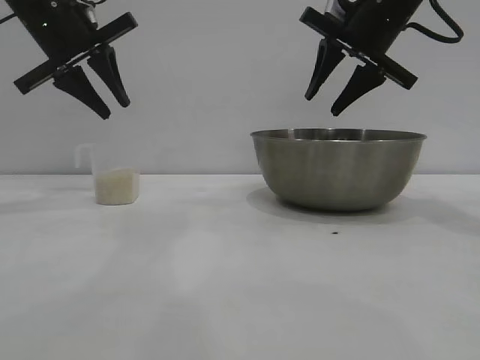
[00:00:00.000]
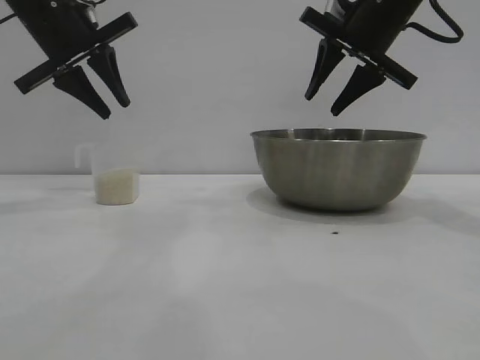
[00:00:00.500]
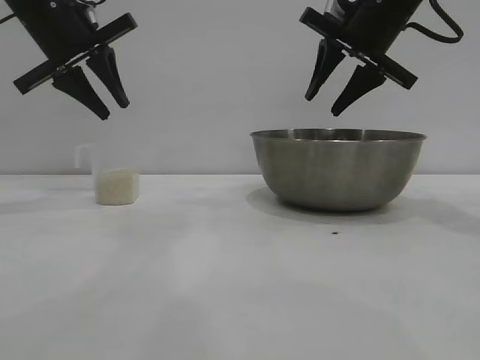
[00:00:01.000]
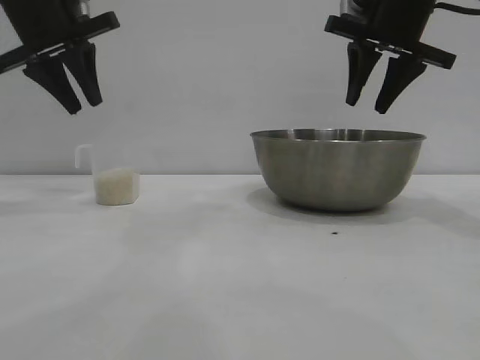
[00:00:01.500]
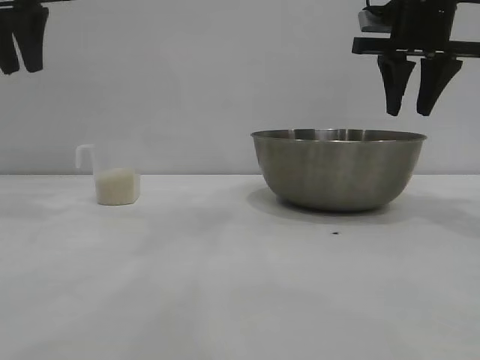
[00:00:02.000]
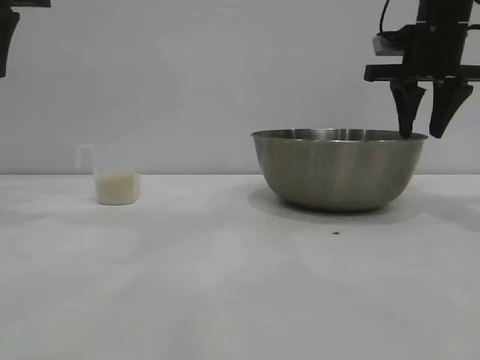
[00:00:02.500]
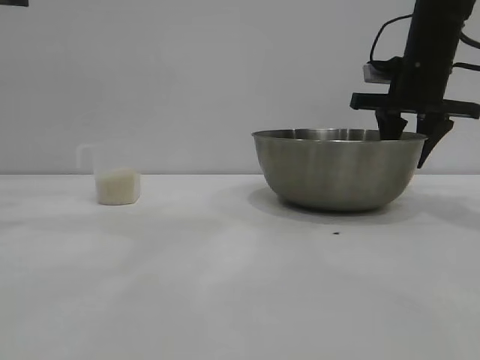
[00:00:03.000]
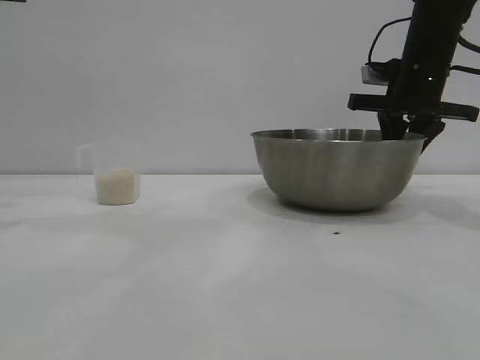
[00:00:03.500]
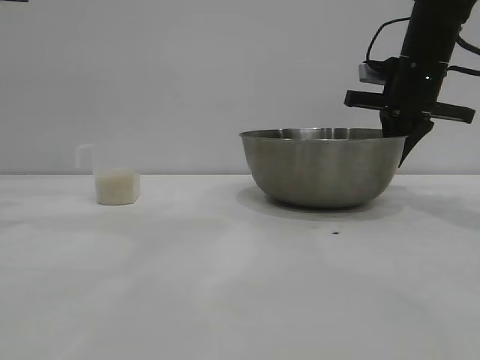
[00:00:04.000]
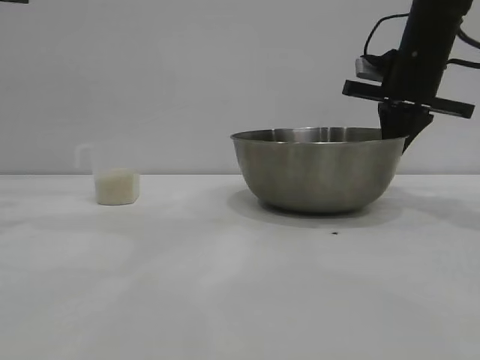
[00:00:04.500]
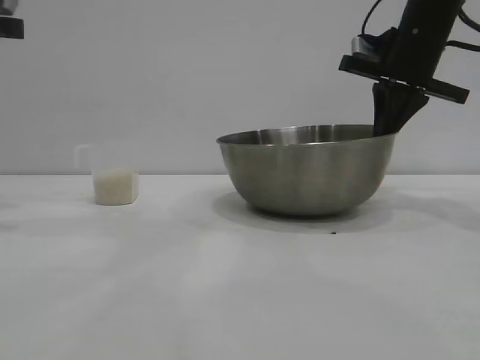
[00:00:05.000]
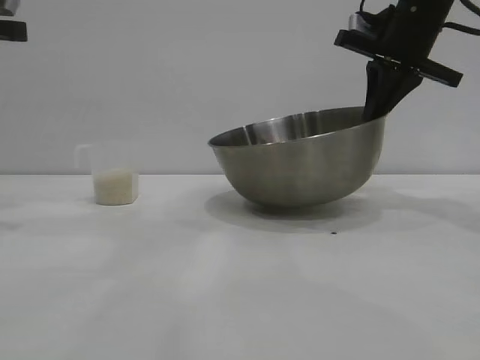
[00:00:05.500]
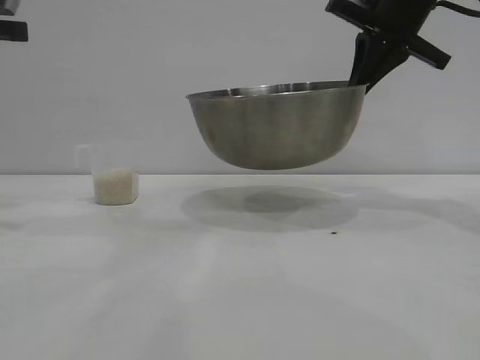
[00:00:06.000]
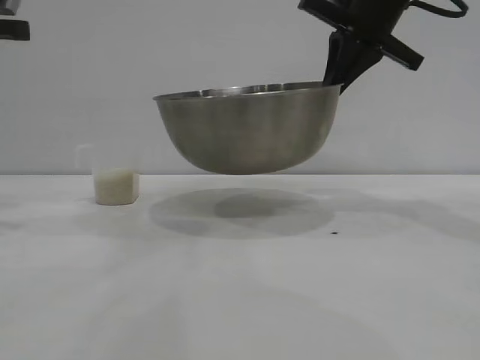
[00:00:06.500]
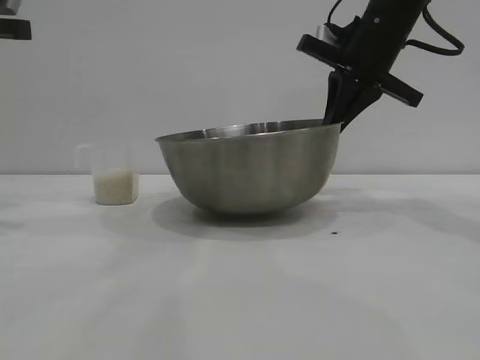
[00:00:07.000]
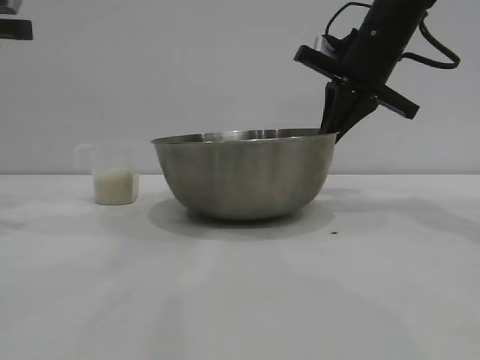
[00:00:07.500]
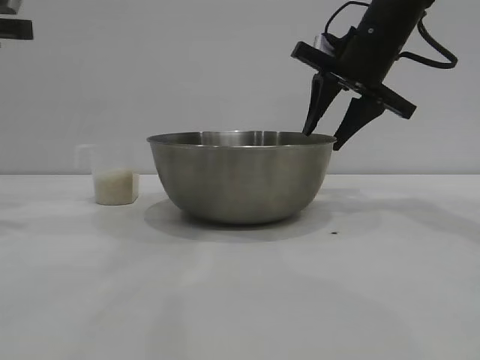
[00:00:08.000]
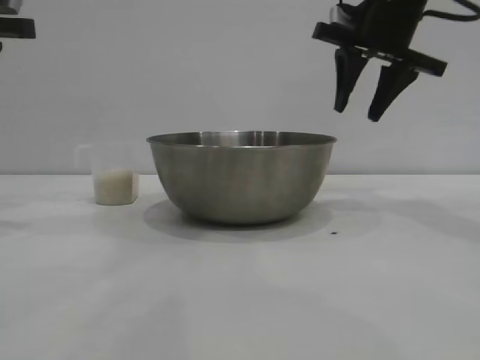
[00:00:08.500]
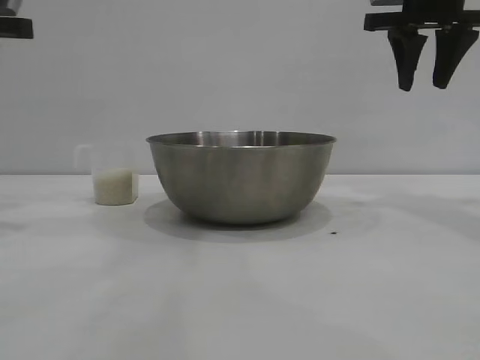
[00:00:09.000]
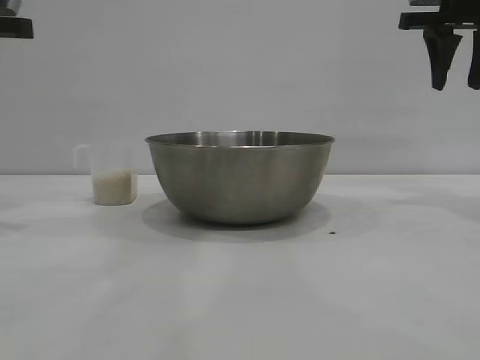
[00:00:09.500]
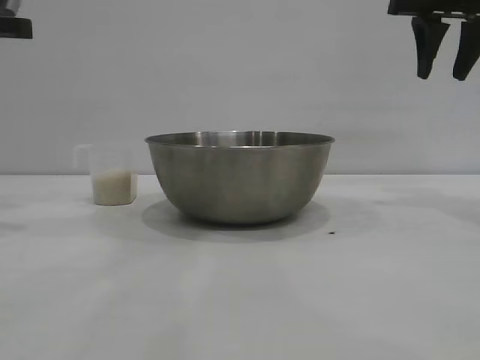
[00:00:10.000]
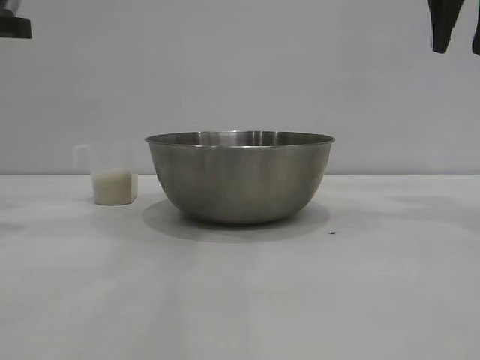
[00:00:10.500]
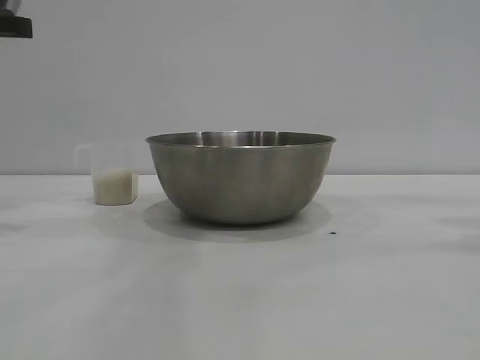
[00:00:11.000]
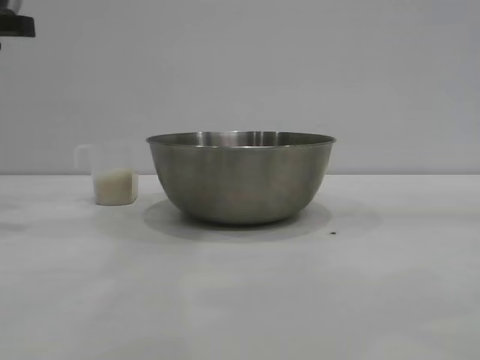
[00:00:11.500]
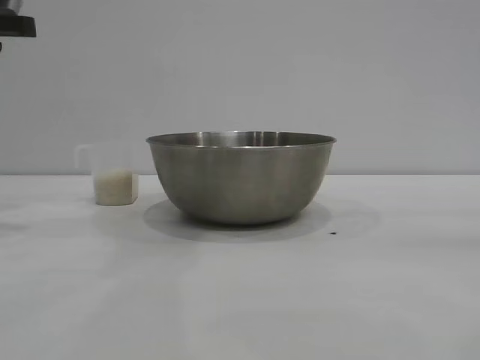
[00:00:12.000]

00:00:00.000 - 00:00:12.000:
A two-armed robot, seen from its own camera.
Task of the whole recording: the right gripper grasp the rice container and place it in the center of the table, the left gripper grasp the rice scoop and pour the rice into the rice container.
Step, 00:00:00.000 - 00:00:05.500: Pick up the bowl with the right gripper.
Step, 00:00:06.000 - 00:00:08.500: Place the bowl in the center of view with the right gripper.

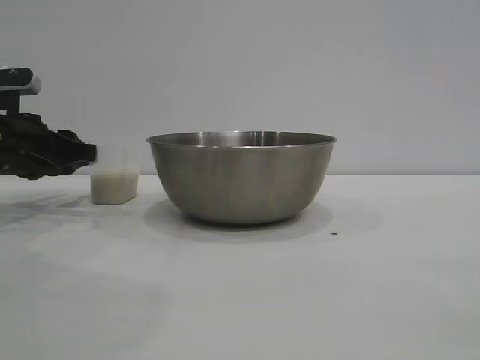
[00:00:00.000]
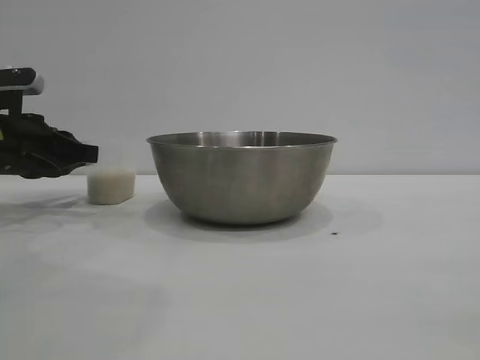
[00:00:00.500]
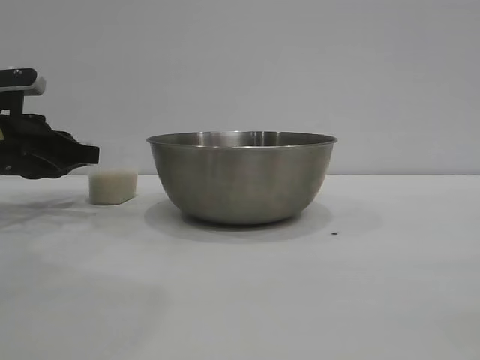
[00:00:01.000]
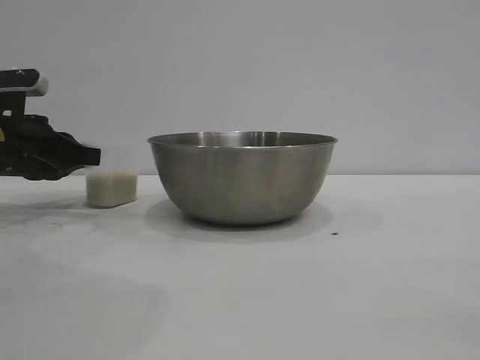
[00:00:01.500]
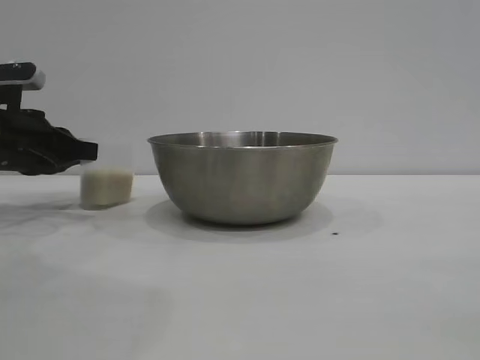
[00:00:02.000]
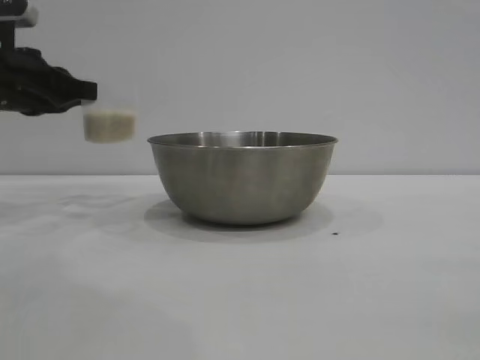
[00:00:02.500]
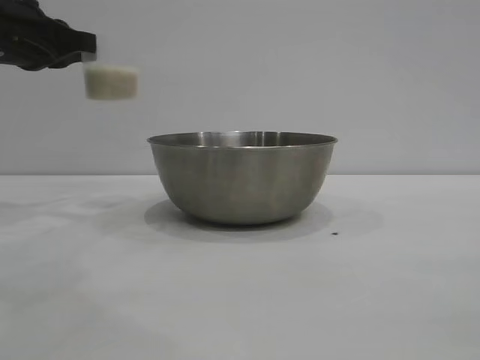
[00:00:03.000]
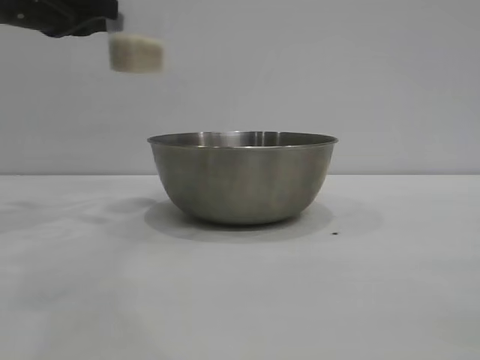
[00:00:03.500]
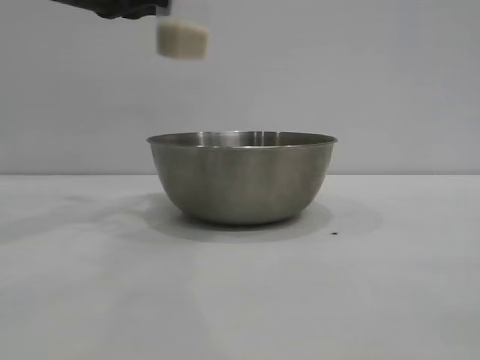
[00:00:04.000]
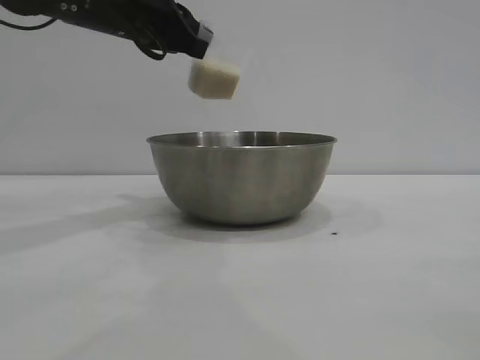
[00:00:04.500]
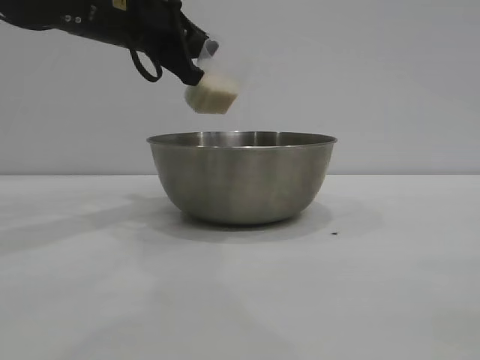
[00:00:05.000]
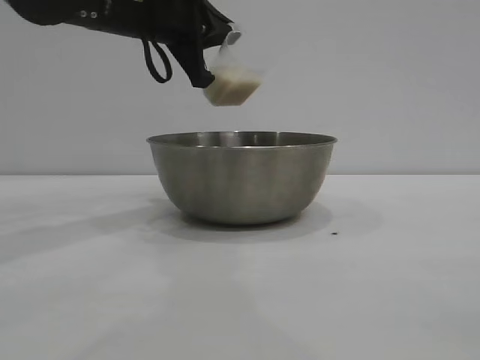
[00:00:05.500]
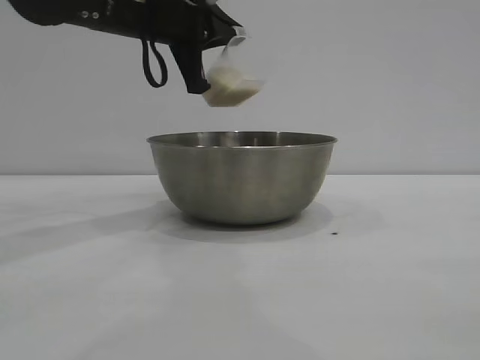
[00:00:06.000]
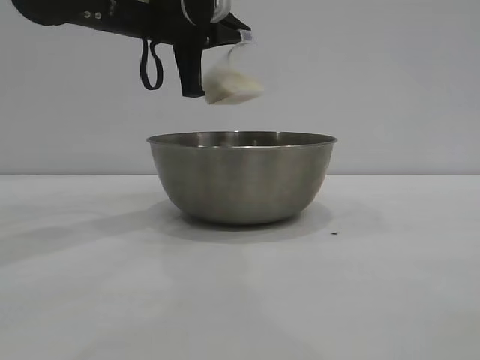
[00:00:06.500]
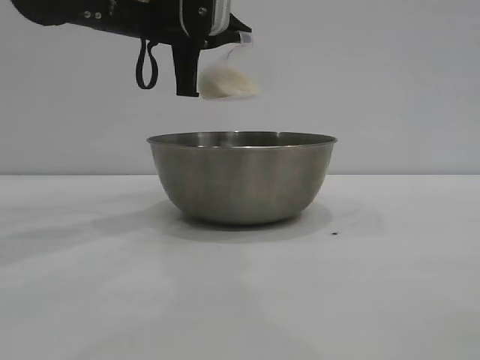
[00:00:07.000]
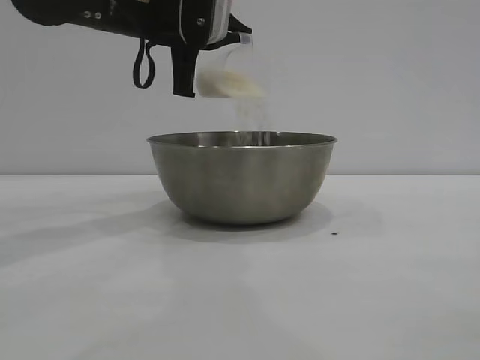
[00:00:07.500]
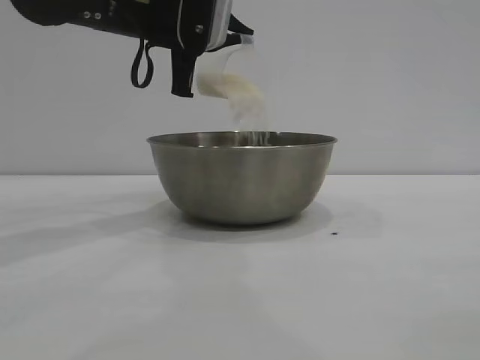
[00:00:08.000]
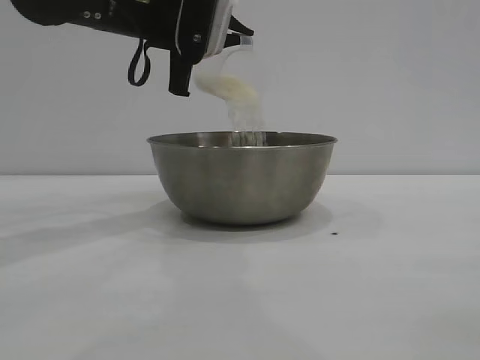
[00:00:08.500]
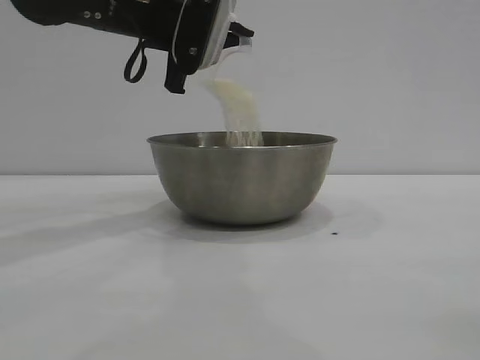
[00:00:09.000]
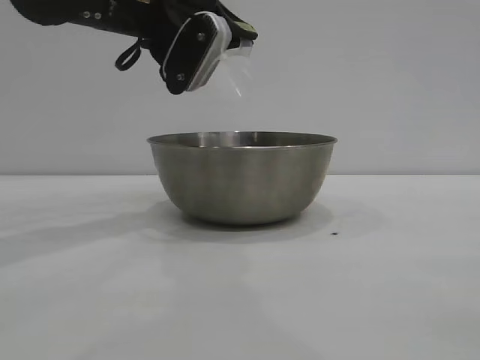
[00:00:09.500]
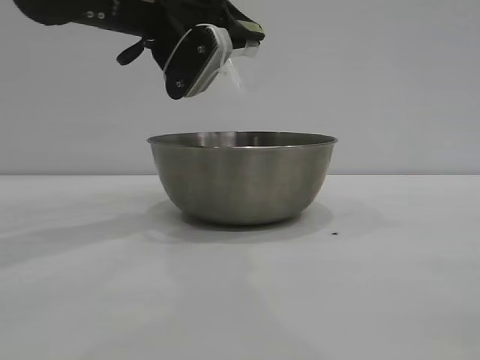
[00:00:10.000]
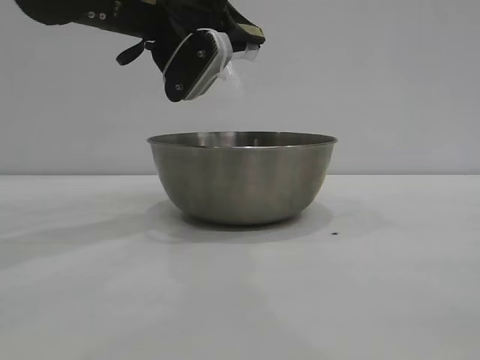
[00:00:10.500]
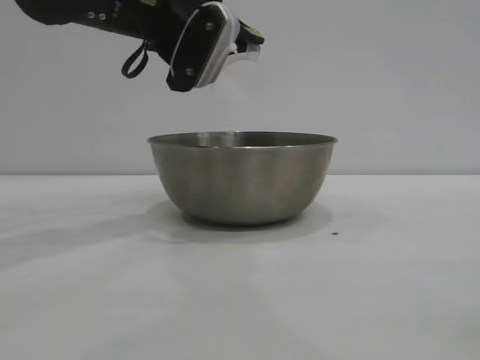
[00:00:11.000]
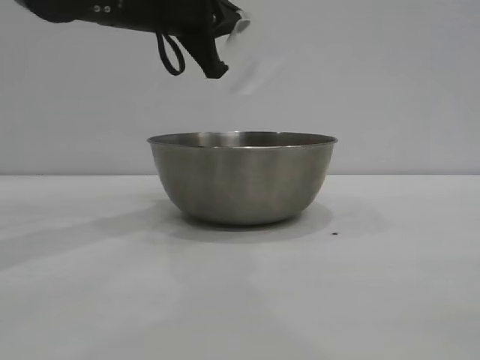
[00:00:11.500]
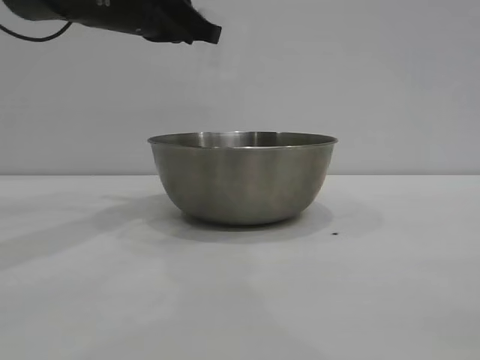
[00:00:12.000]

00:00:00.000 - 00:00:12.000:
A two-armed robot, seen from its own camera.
Task of the whole recording: the right gripper grasp the rice container and place it in the center of the table, the left gripper grasp the rice scoop and pour the rice into the rice container.
Step, 00:00:00.000 - 00:00:02.500: Pick up the cup with rice in it with the left gripper.
Step, 00:00:03.000 - 00:00:11.500: Pour the rice from the cup into the bowl with the left gripper.

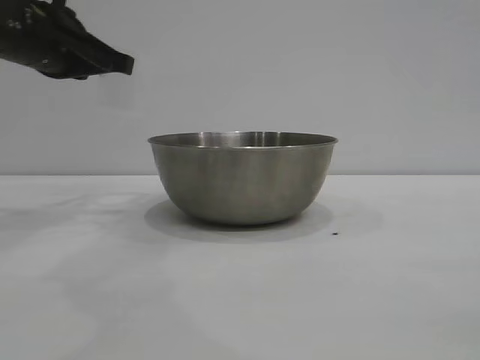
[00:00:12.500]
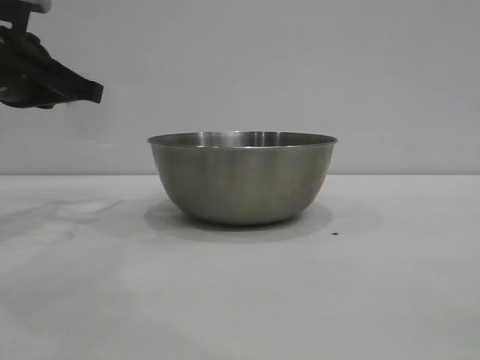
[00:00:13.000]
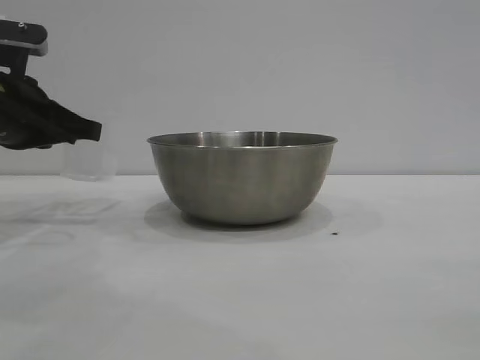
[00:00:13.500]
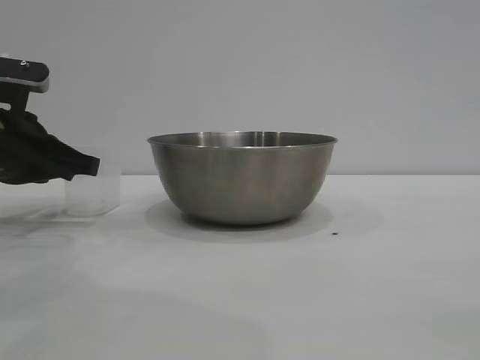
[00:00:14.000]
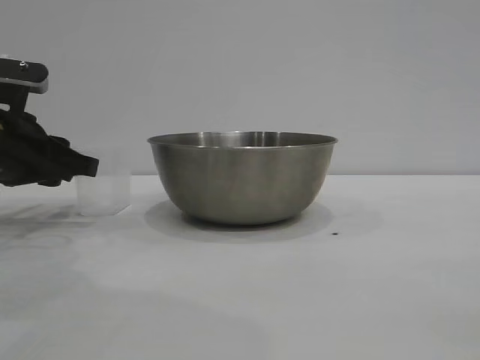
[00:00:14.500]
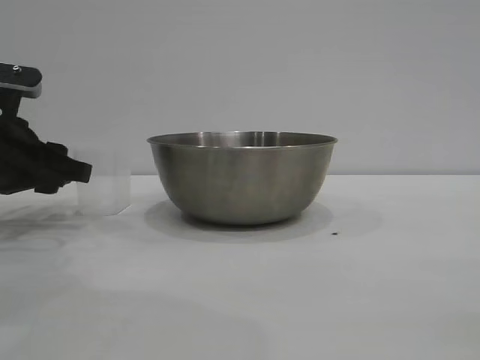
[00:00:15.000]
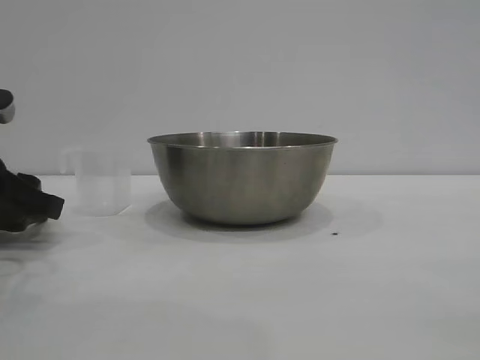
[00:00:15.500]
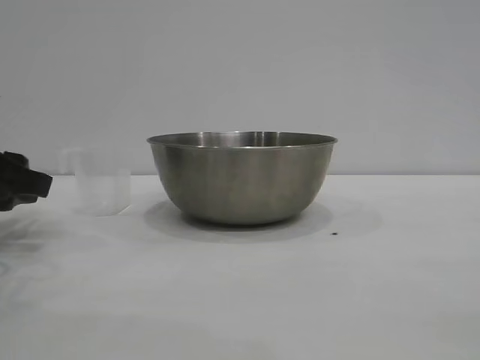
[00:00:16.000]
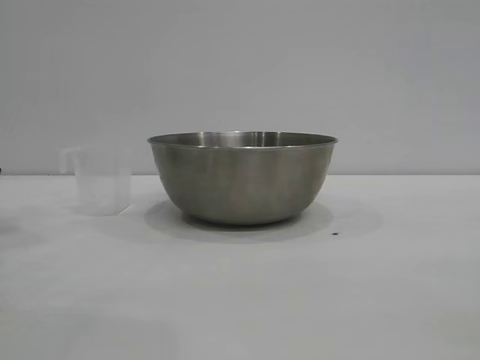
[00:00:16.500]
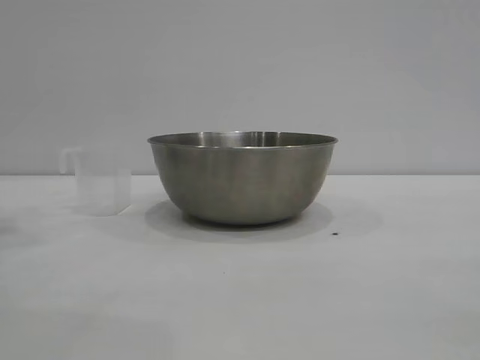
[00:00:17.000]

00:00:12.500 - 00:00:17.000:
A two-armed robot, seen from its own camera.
Task of the whole recording: the right gripper grasp the rice container and place it in the center of the table, the left gripper grasp the rice scoop and pour the rice into the rice container.
Step, 00:00:12.500 - 00:00:15.000: Place the cup on the table with the left gripper.
